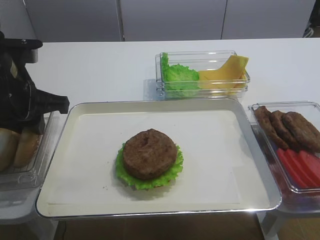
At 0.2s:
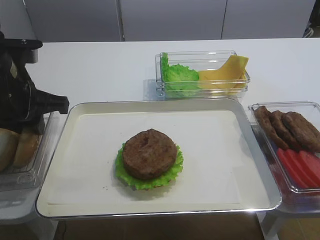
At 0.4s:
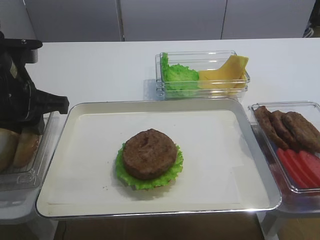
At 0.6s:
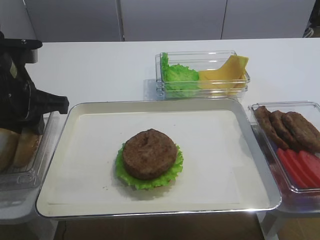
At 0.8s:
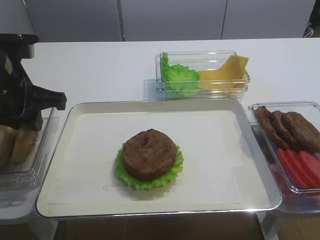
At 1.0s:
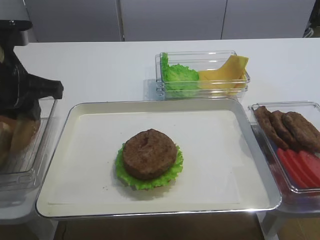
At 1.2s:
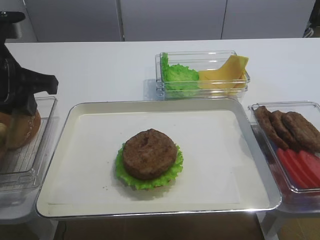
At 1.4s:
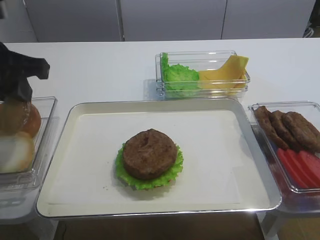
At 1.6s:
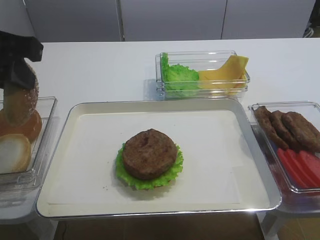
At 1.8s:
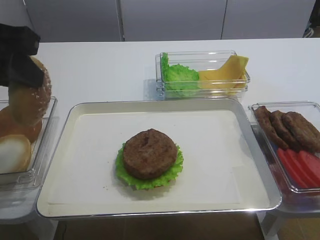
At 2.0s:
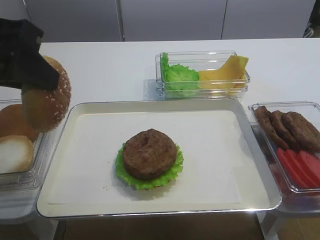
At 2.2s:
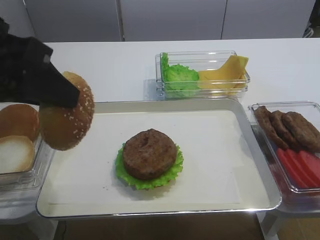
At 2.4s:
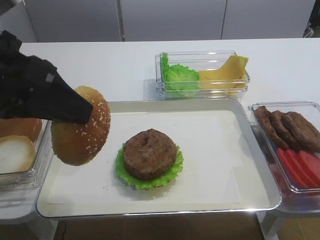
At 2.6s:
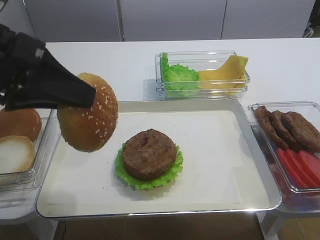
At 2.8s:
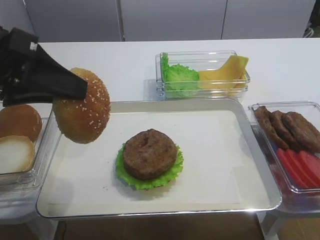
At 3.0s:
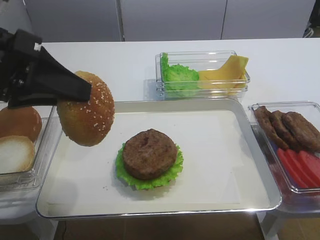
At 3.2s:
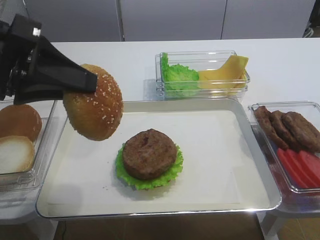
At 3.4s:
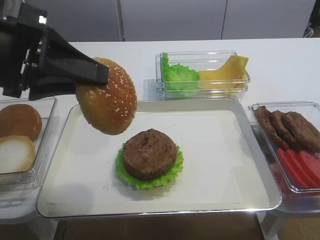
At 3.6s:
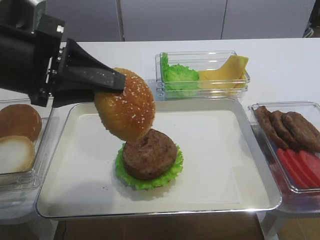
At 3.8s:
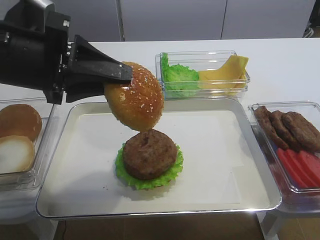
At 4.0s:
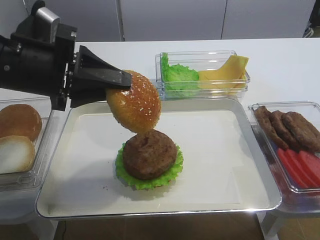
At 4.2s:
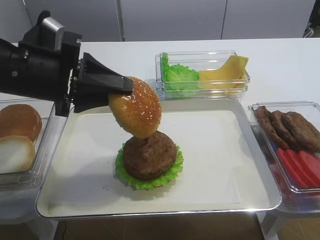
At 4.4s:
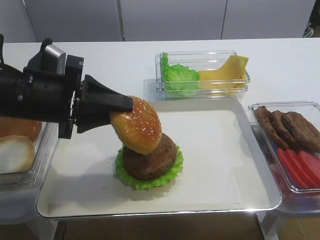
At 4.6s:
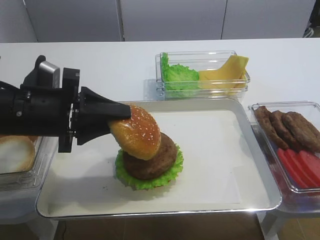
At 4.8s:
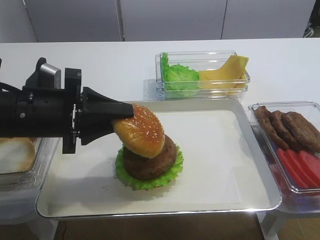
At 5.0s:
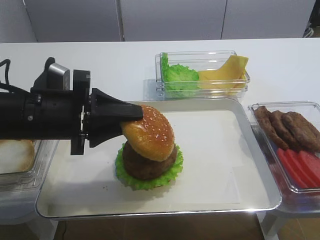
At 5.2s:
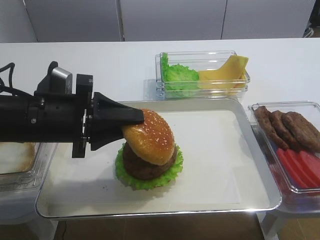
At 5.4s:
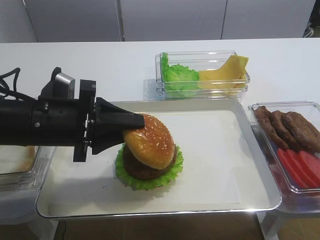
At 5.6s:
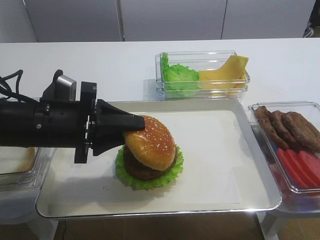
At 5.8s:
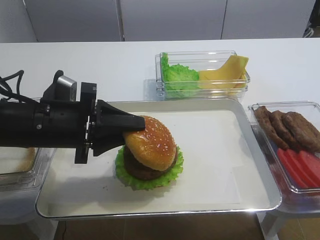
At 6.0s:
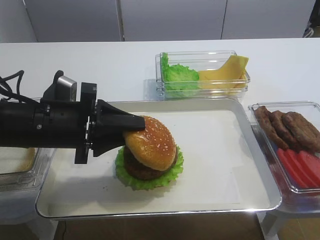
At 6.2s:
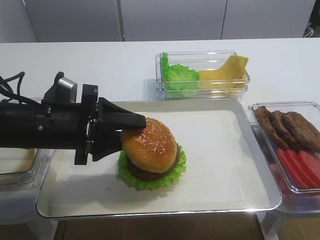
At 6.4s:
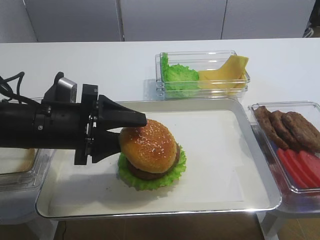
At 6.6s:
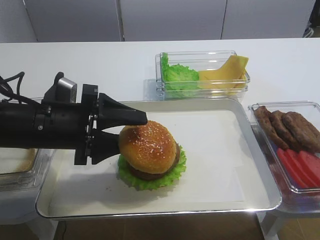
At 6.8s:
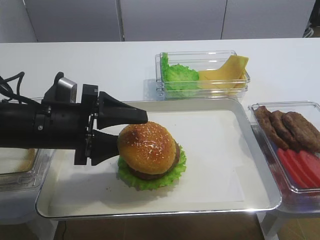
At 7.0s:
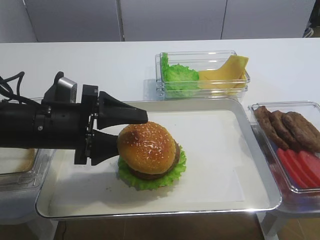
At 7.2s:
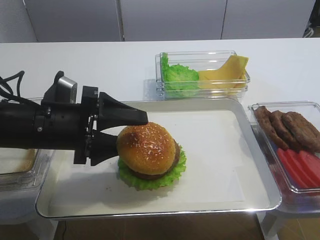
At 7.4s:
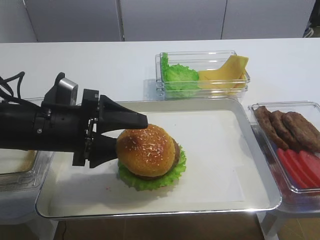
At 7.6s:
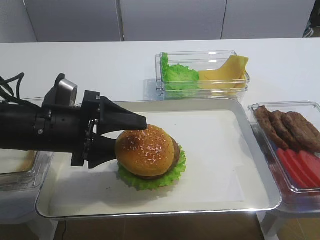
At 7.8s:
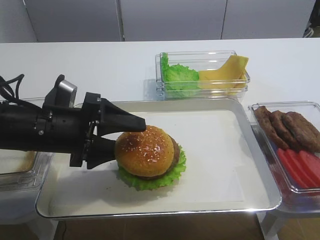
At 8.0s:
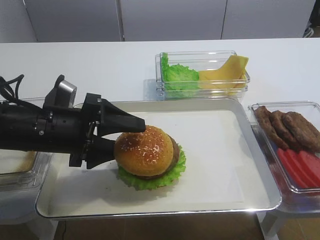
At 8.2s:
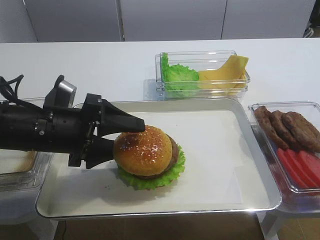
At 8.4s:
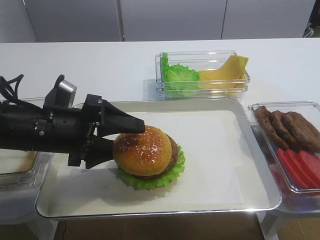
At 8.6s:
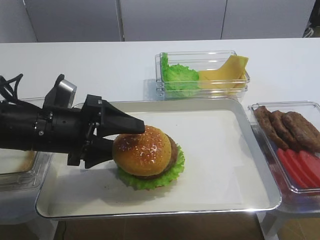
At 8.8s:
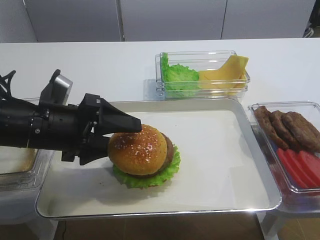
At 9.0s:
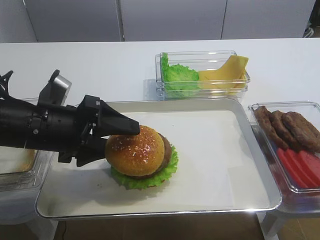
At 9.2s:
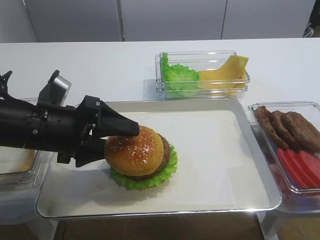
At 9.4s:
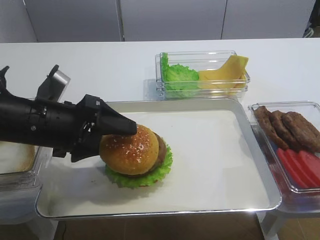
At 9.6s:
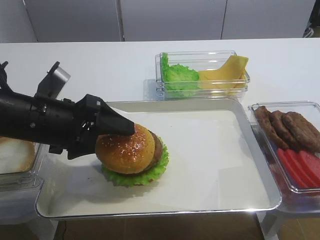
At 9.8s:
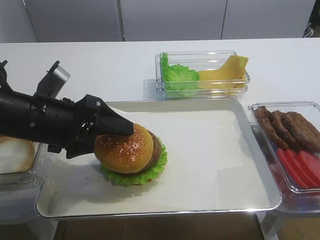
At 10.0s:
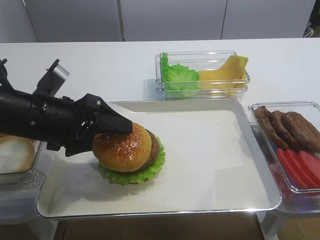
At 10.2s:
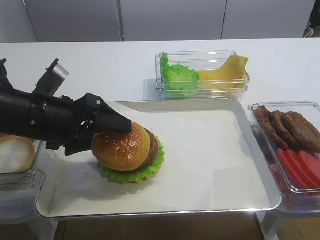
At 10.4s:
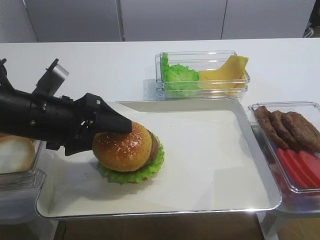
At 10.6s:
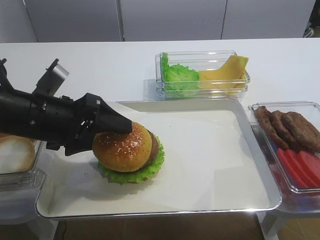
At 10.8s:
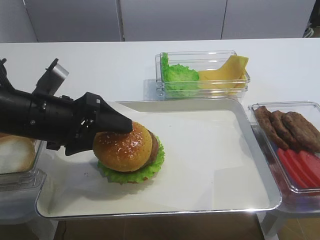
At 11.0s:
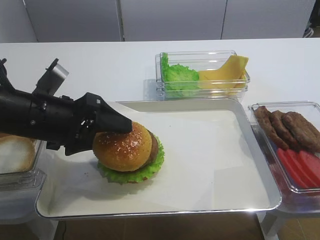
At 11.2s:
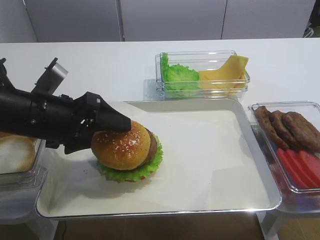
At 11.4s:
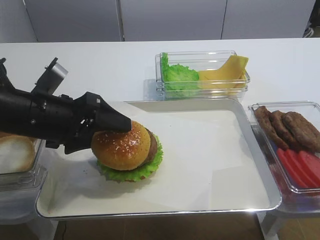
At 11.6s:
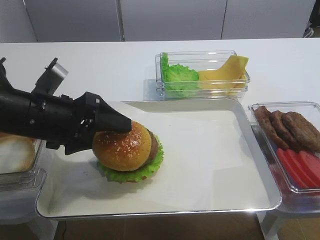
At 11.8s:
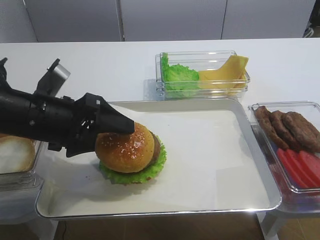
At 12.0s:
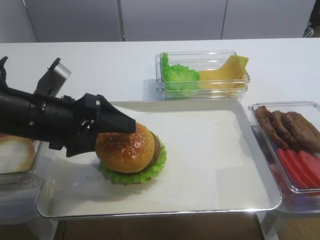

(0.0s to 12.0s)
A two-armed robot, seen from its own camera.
0.0s - 1.6s: The left gripper goes some 10 cm upward.
3.0s - 4.4s: The left gripper is displaced downward and forward by roughly 10 cm.
4.4s - 6.0s: The grippers move only a little.
6.0s - 7.6s: The left gripper opens its fingers.
7.6s - 9.0s: There are only small adjustments of the grippers.
9.0s - 10.4s: The grippers move only a little.
10.4s - 12.0s: Both grippers stay put.

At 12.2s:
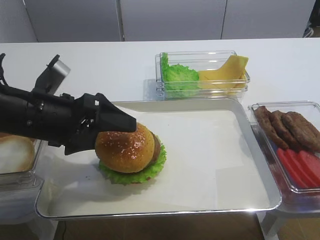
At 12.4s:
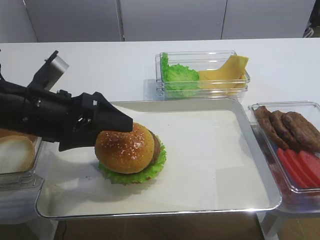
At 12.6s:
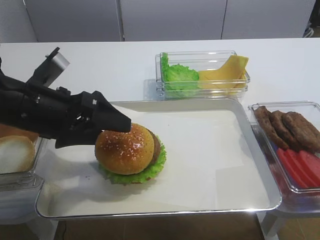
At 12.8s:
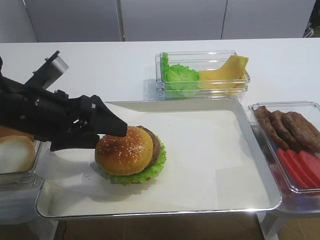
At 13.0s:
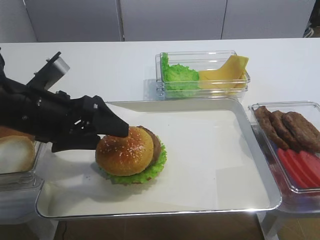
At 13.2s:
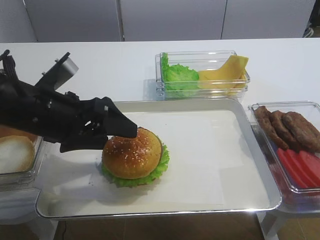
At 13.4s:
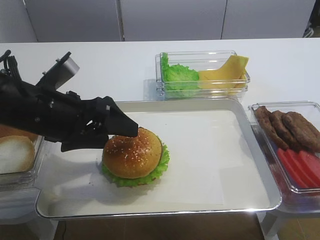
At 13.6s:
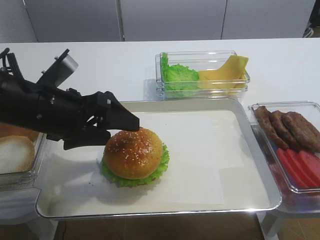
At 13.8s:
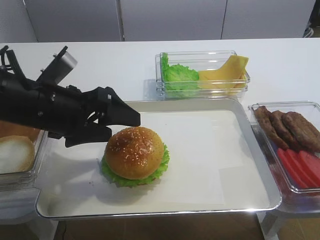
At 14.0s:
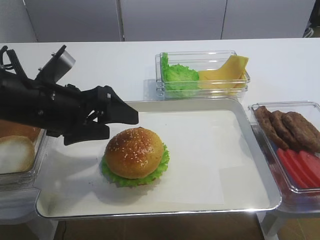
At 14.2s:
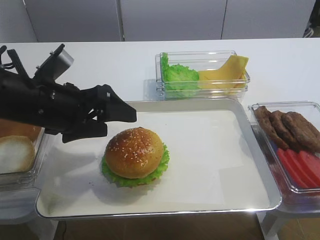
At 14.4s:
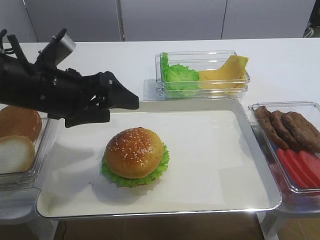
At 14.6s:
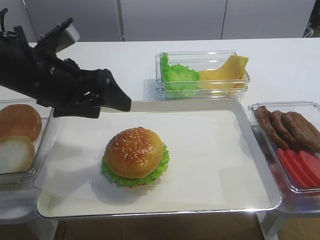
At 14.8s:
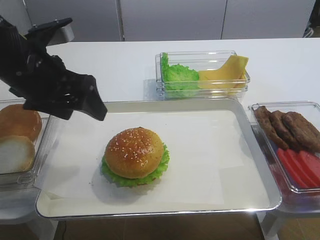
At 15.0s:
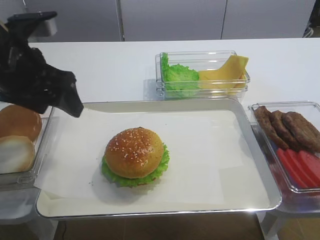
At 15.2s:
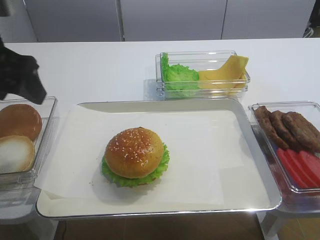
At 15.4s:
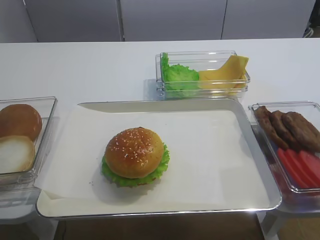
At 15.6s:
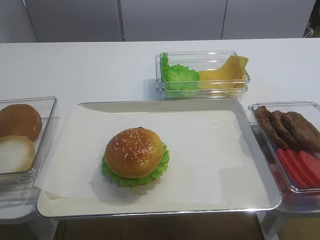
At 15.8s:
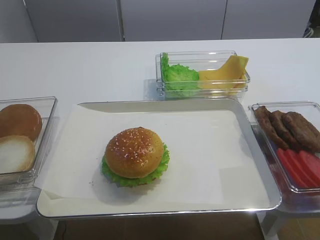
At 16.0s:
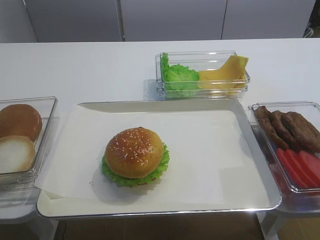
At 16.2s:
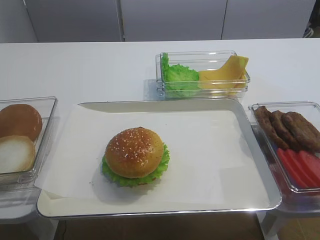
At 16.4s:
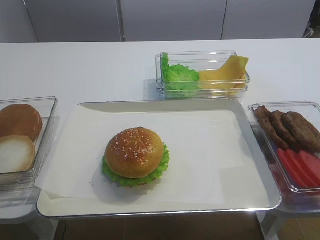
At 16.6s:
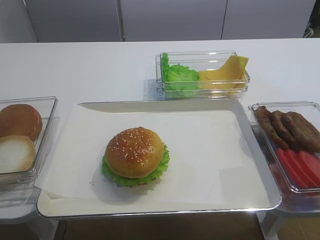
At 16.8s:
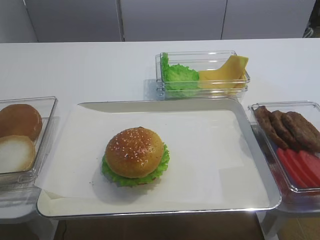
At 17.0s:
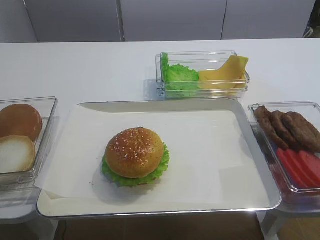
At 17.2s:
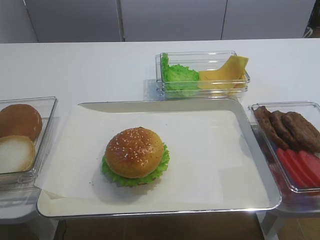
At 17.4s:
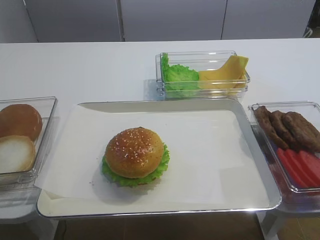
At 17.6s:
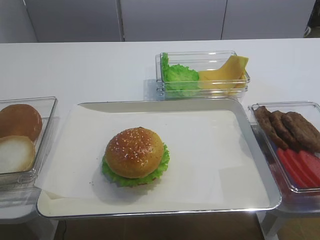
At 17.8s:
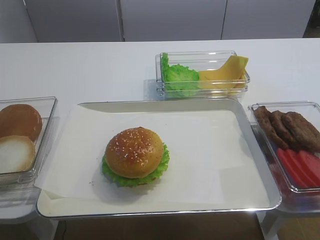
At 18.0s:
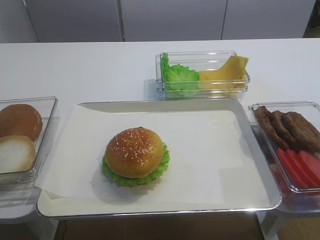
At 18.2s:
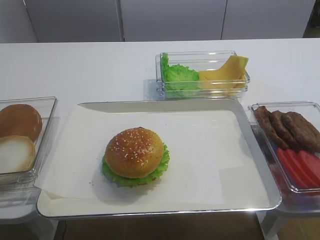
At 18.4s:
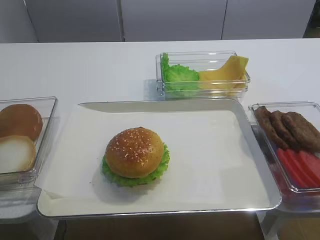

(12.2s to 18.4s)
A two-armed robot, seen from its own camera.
Step, 12.2s - 14.2s: Place the hamburger lid on the cutlet slice with the left gripper.
12.2s - 13.8s: The grippers move only a little.
13.8s - 15.4s: The left gripper moves upward and to the left, roughly 15 cm.

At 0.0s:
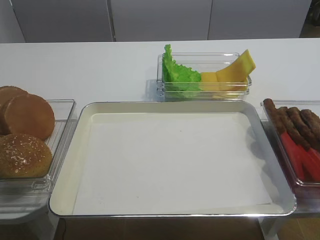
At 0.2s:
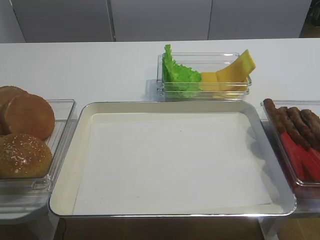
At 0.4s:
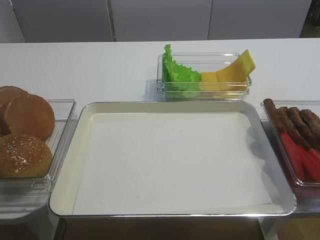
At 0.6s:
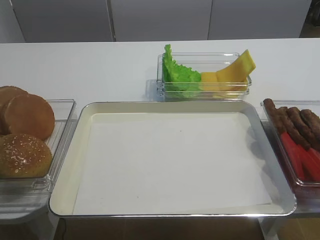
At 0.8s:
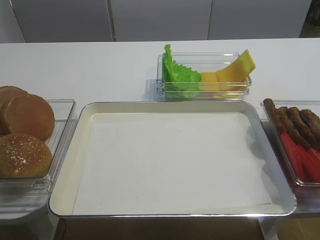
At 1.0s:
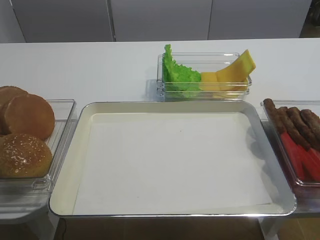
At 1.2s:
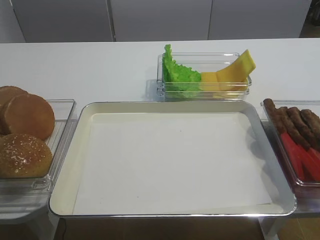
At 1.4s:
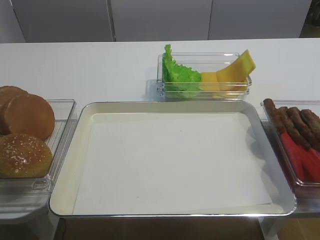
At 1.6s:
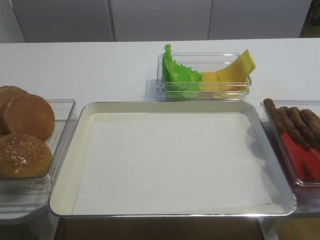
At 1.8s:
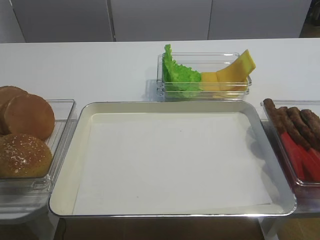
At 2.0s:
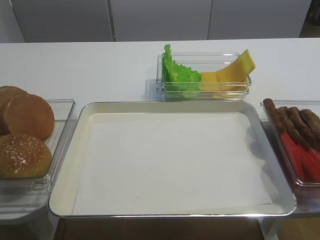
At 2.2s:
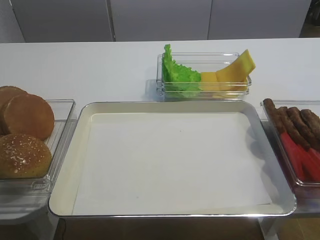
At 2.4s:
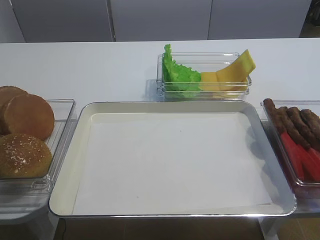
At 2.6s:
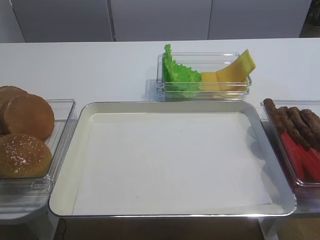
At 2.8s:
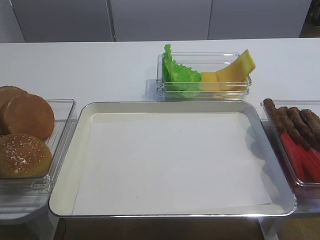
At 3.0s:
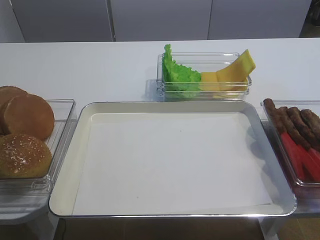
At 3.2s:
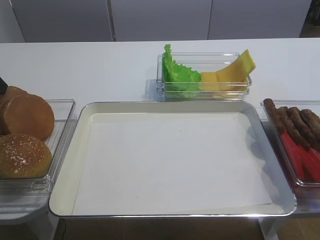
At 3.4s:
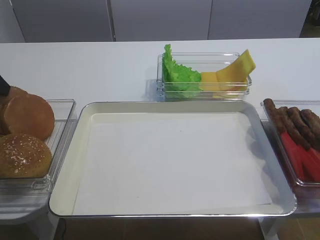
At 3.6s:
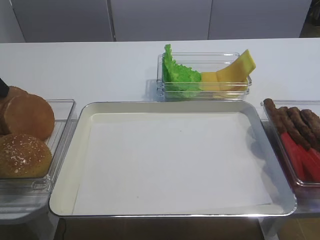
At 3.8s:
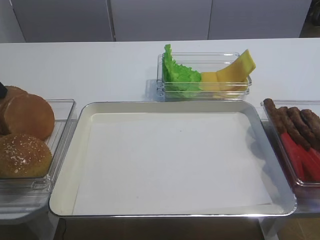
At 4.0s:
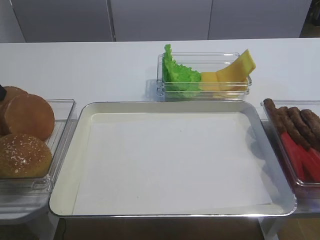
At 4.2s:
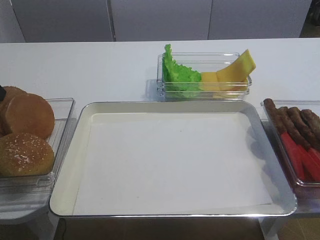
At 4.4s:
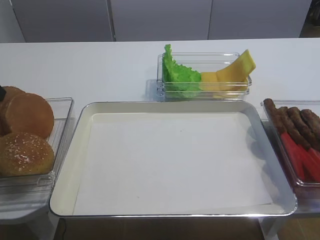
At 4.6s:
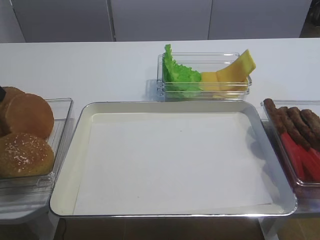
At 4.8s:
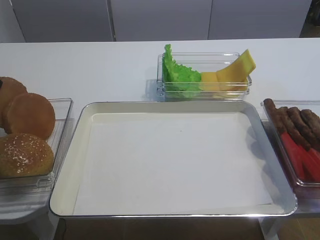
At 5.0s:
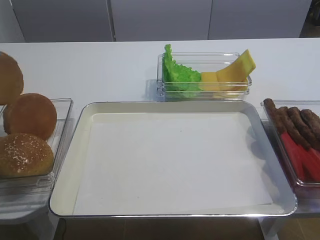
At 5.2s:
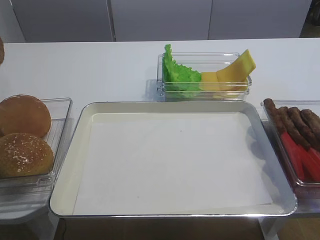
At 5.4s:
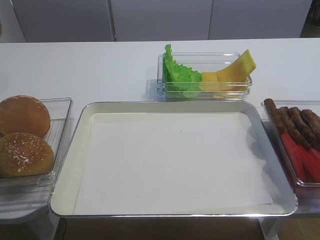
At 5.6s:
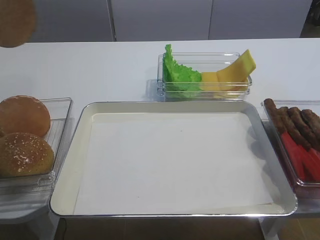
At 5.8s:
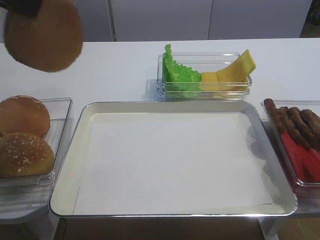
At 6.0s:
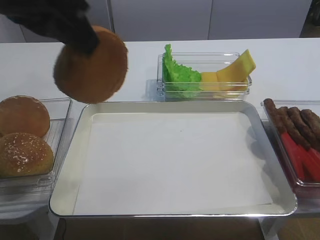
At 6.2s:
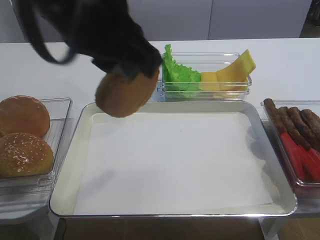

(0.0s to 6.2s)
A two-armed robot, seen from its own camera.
3.2s - 4.6s: The left gripper closes up.
4.6s - 6.2s: The left gripper travels to the right, upward and backward by about 30 cm.
